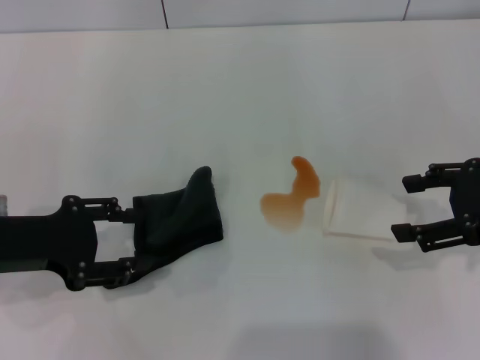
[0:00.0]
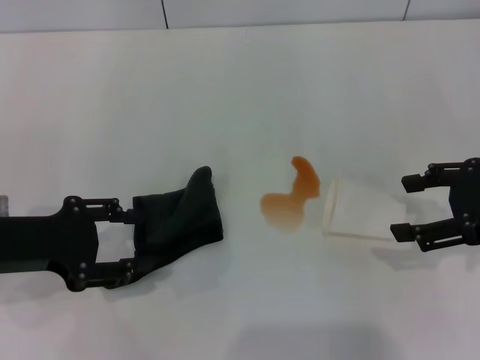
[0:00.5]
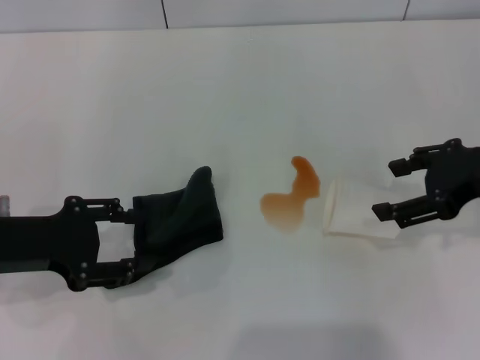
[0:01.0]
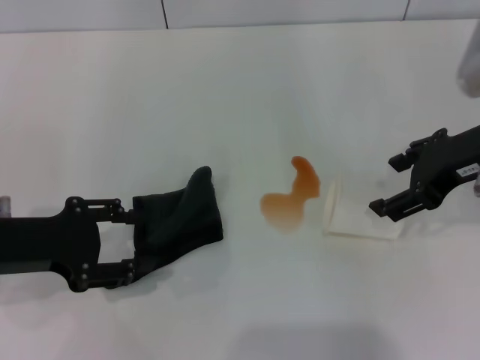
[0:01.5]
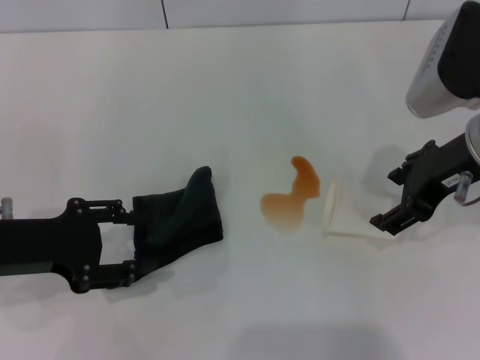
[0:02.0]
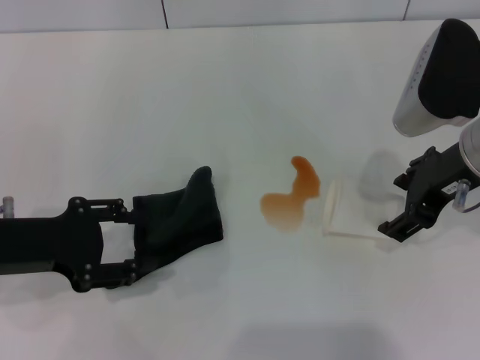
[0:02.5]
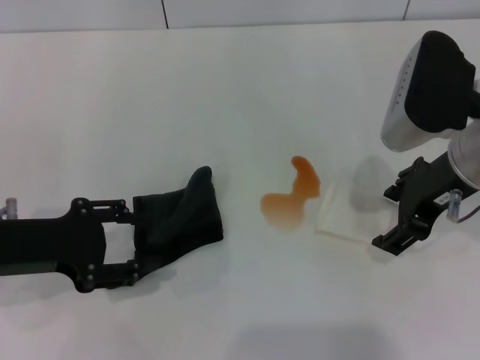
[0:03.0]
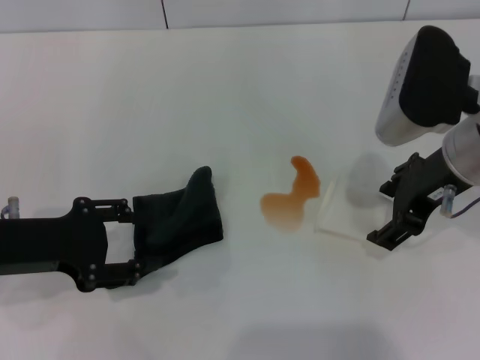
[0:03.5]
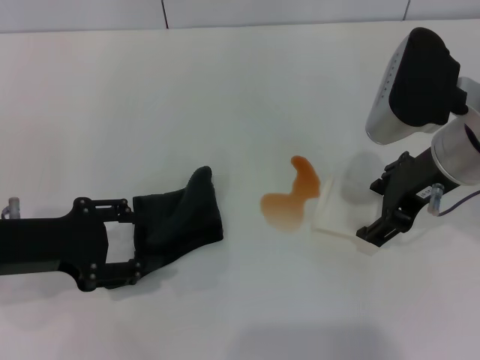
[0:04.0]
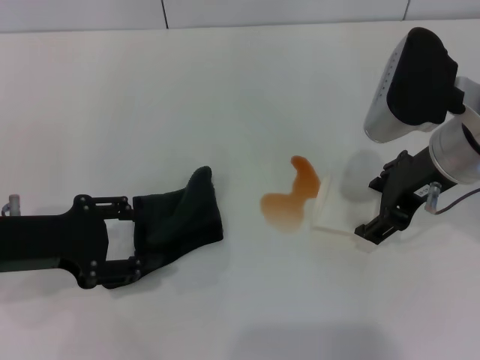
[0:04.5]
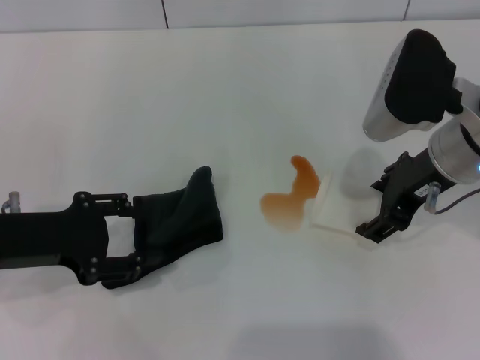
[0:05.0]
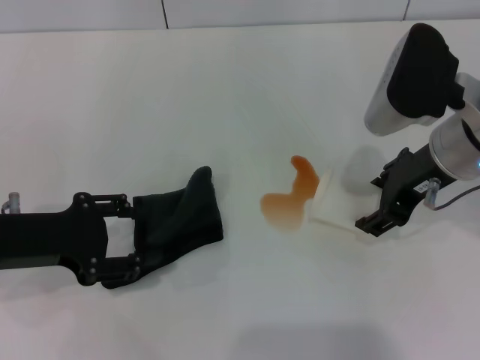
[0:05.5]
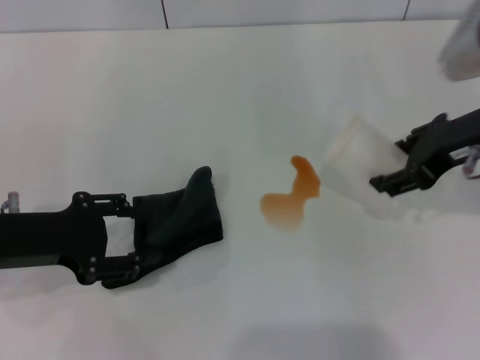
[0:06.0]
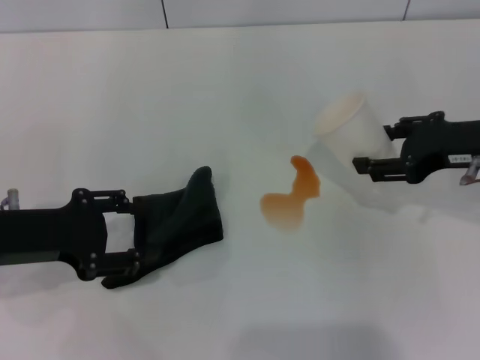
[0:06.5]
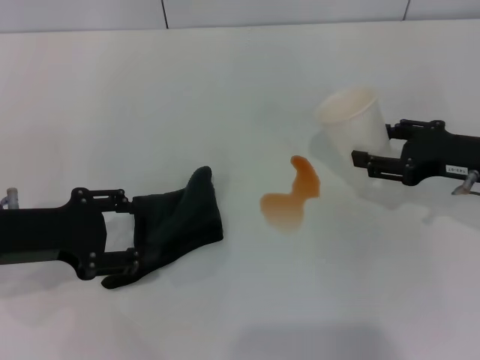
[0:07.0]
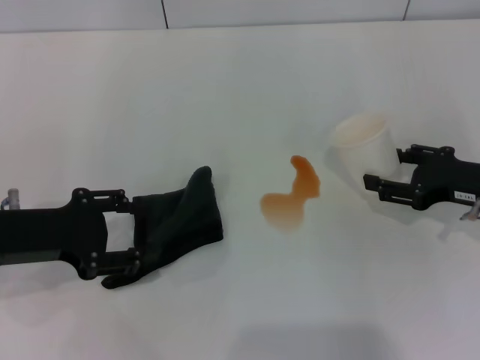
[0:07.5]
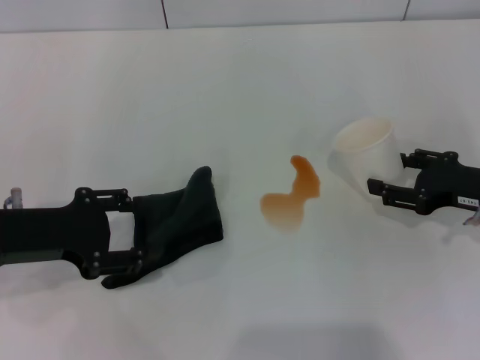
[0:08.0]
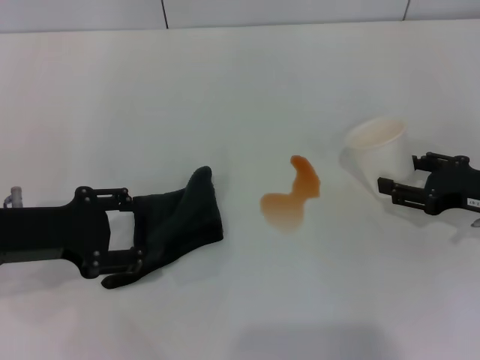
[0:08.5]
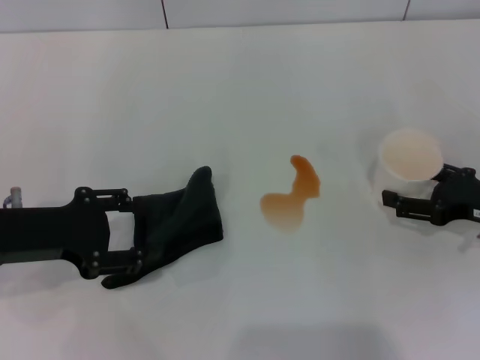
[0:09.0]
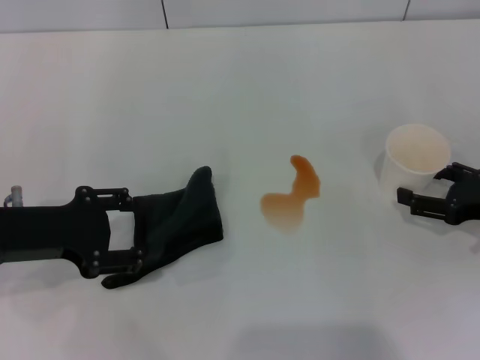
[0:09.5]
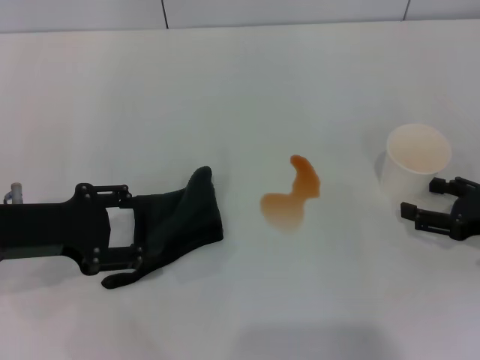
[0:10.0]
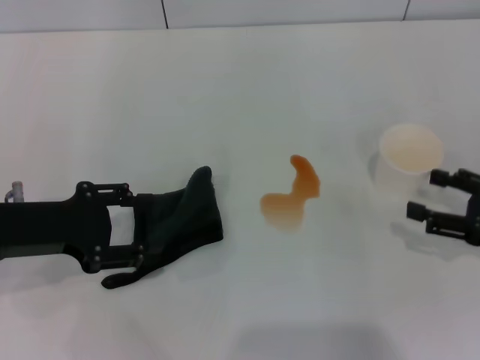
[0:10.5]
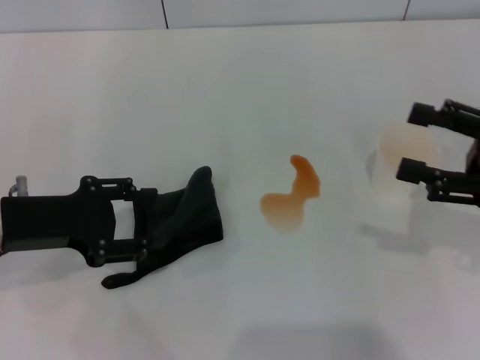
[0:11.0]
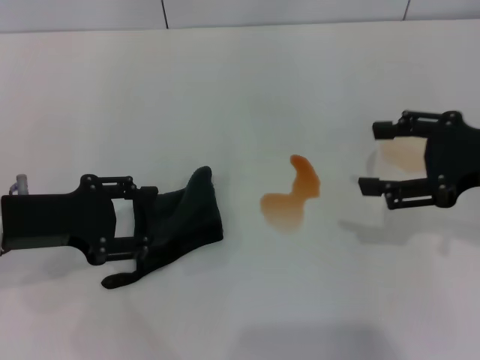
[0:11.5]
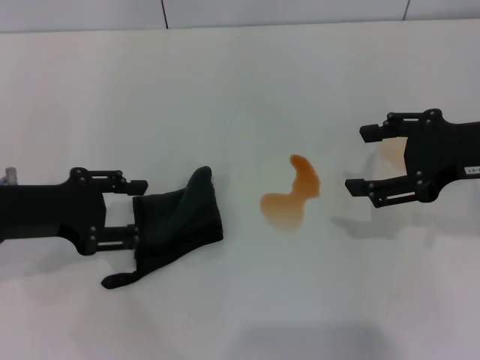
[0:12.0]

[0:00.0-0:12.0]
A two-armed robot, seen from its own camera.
Step, 0:00.0 to 0:04.5: Grasp the paper cup with the right gripper.
Step, 0:05.0 to 0:10.0: Stand the paper cup upright with the right gripper.
0:00.0 to 0:02.0: The right gripper goes approximately 10 cm to the left.
0:02.0 to 0:04.0: There are only small adjustments of the grippers.
0:04.0 to 0:06.0: The right gripper changes place by approximately 5 cm, and closes its fingers.
0:06.0 to 0:08.0: The right gripper moves downward and to the right, approximately 15 cm.
0:08.0 to 0:10.0: The right gripper changes place by about 5 cm, and opens.
0:10.0 to 0:12.0: The right gripper travels upward and to the left by some 15 cm.

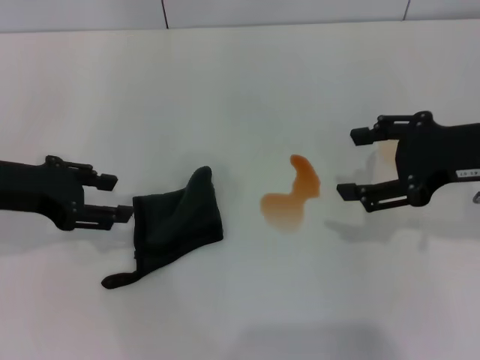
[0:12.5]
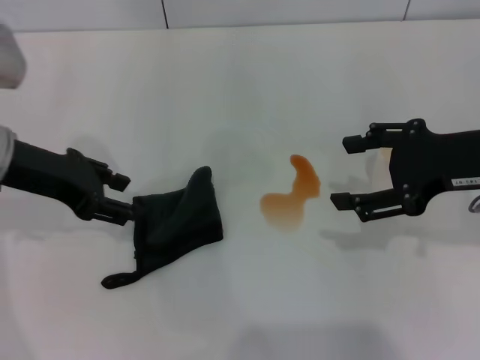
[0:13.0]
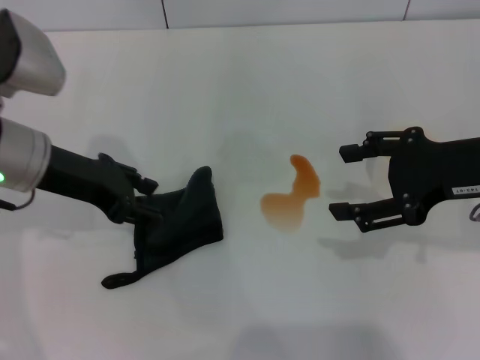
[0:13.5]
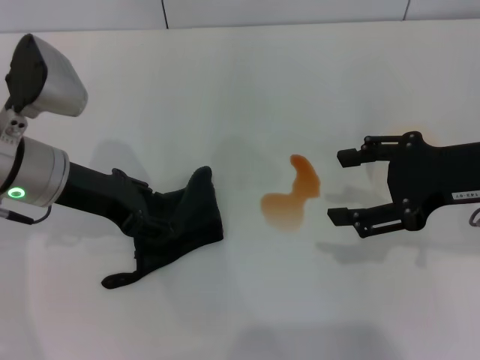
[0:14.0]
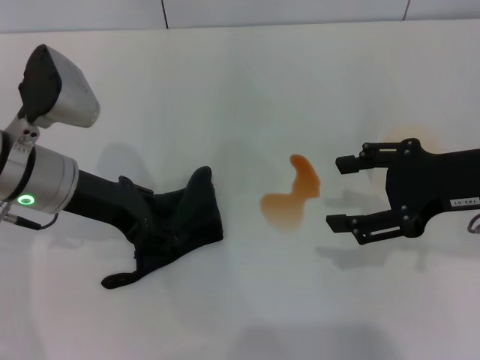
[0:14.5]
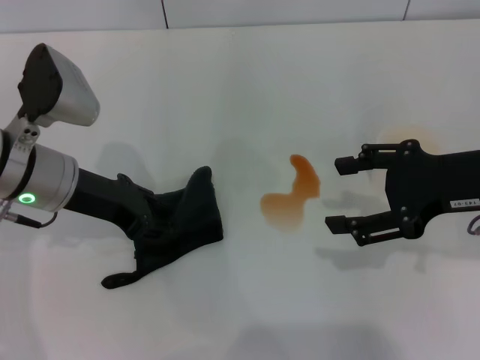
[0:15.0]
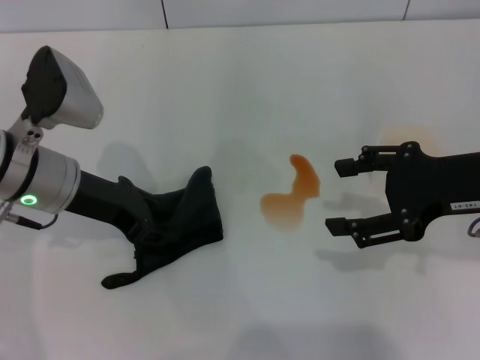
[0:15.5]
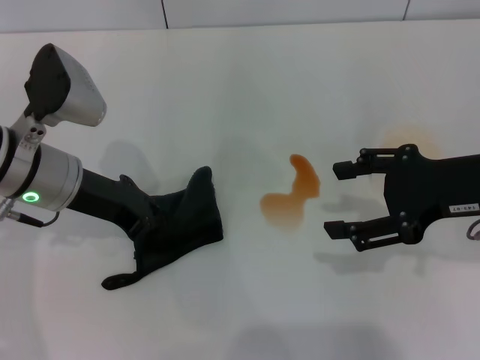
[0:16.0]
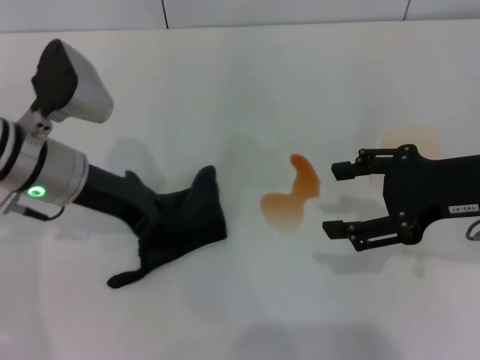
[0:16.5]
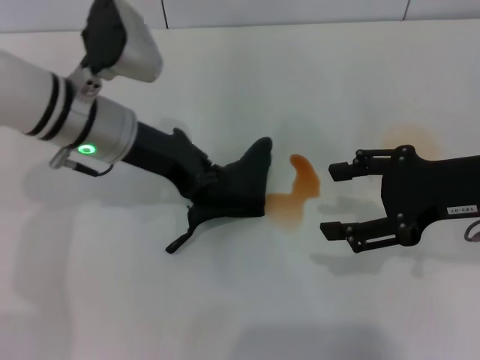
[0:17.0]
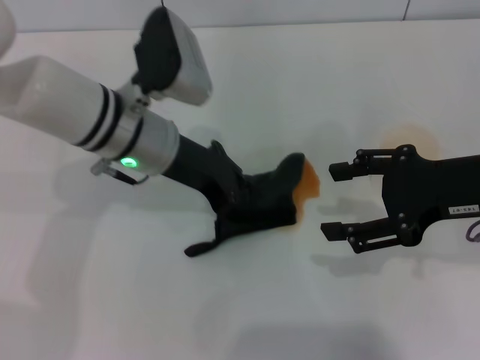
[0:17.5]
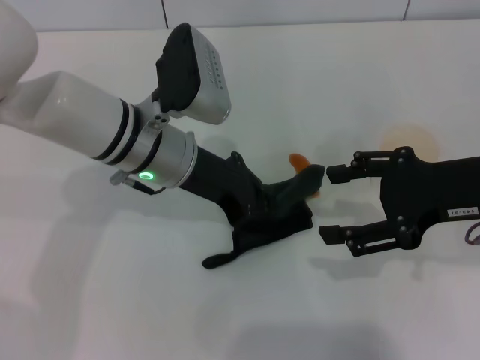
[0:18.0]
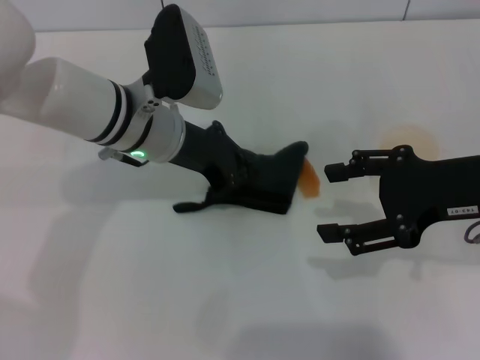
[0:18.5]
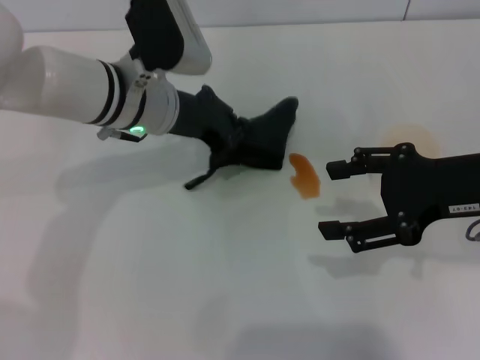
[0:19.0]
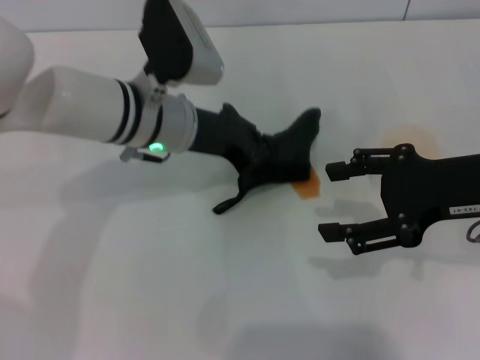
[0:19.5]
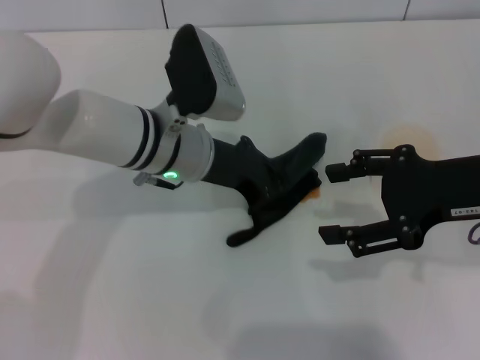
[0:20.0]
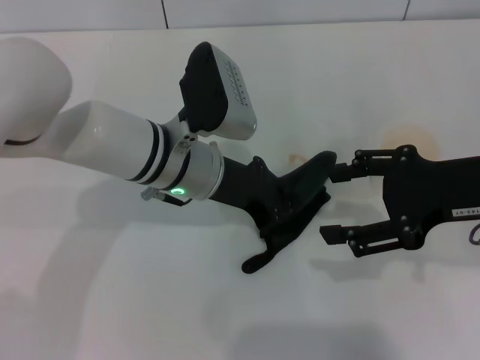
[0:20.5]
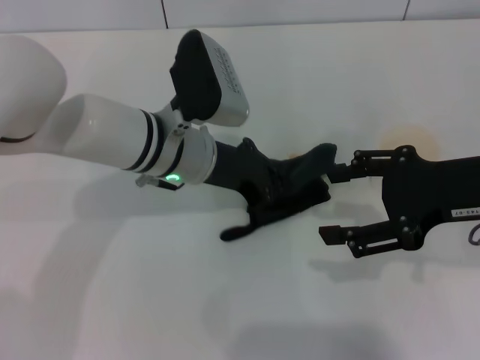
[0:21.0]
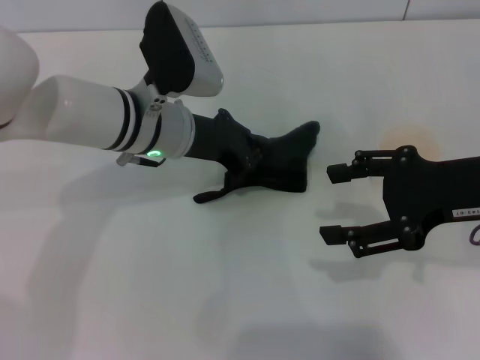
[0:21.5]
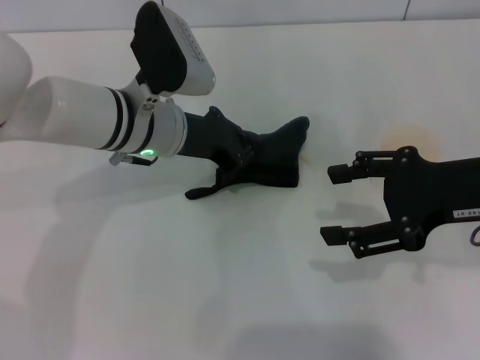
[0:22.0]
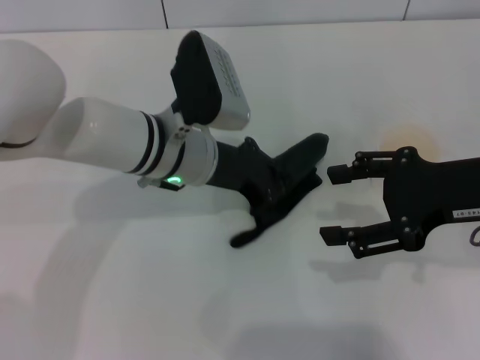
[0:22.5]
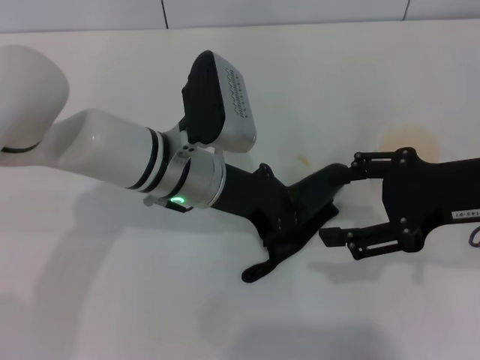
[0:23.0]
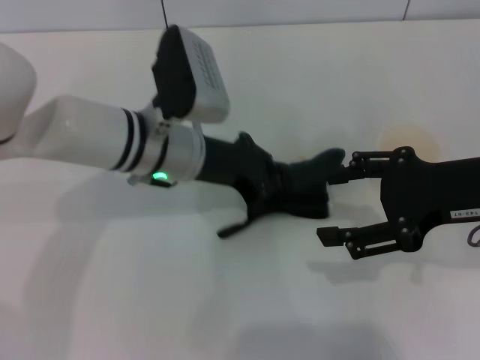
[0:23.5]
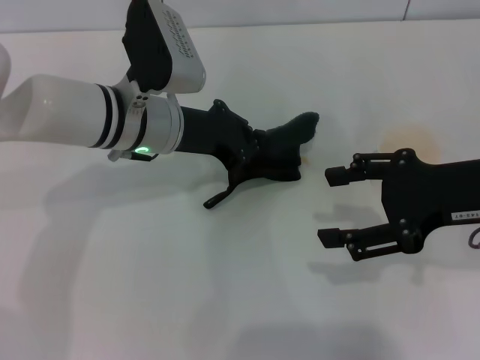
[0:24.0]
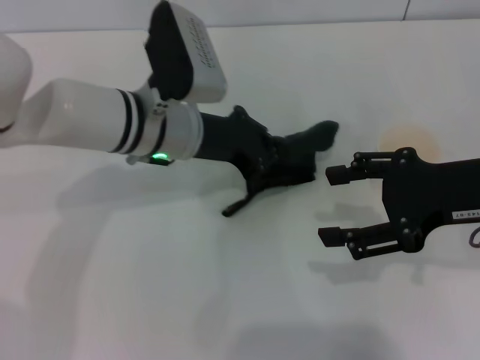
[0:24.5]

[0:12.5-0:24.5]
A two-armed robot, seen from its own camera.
Step, 0:12.5 to 0:16.0: Grasp the rag with the left gripper.
0:12.5 to 0:14.5: The left gripper moves to the right, some 5 cm.
0:14.5 to 0:16.5: The left gripper closes its fingers.
0:16.5 to 0:18.5: The left gripper moves to the right, roughly 10 cm.
0:18.5 to 0:24.5: There are only small adjustments of the grippers.

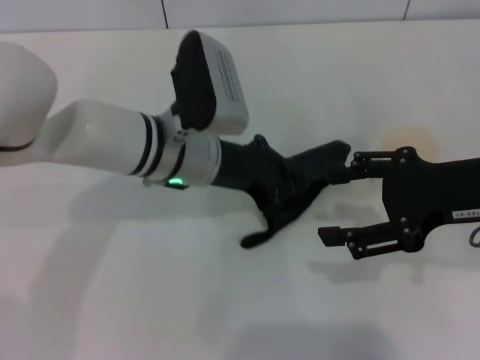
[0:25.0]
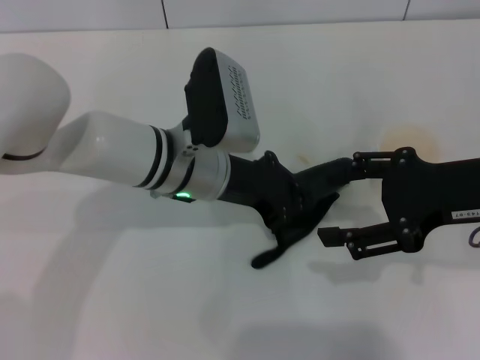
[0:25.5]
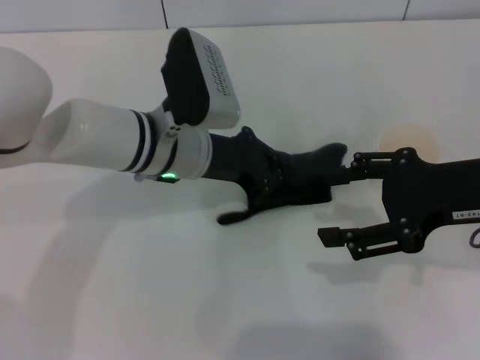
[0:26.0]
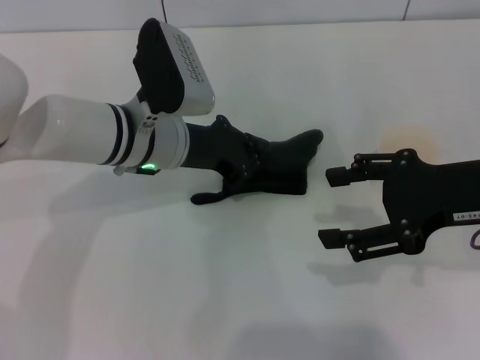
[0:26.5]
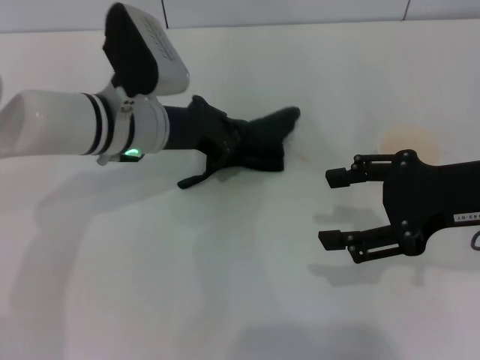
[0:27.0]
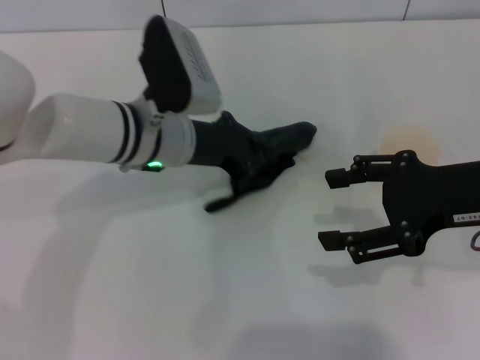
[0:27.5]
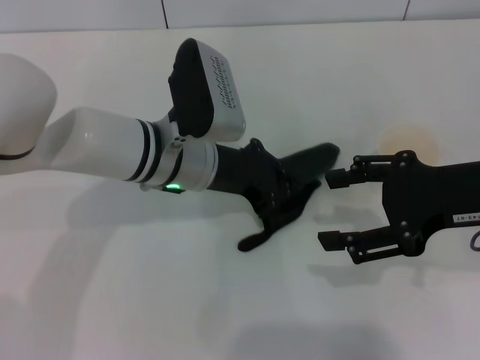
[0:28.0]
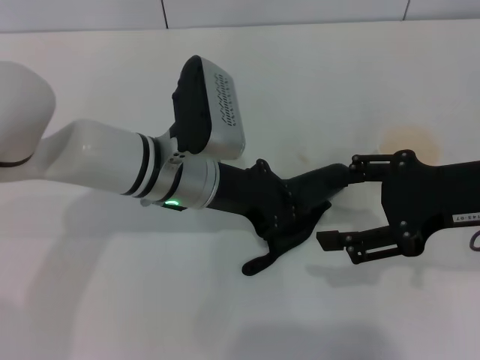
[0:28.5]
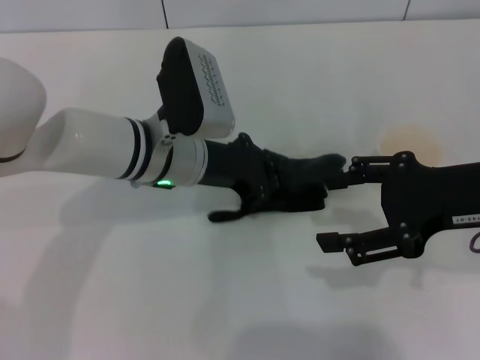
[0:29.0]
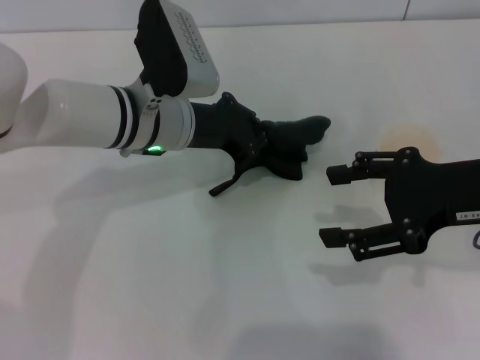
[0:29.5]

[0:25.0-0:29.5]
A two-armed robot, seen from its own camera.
0:25.0 to 0:27.0: The left gripper changes place by approximately 5 cm.
